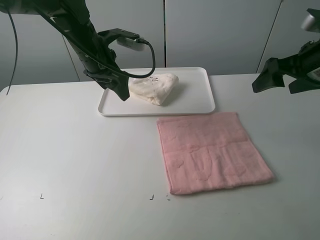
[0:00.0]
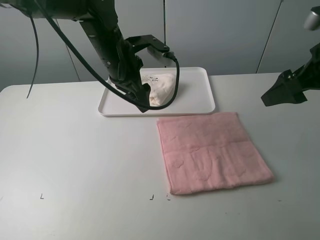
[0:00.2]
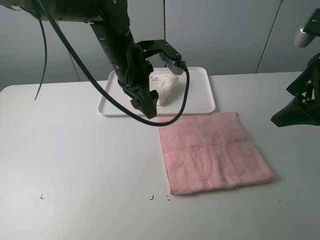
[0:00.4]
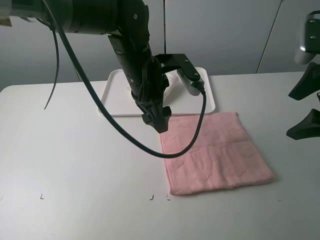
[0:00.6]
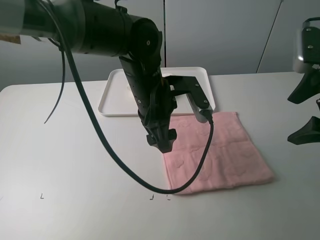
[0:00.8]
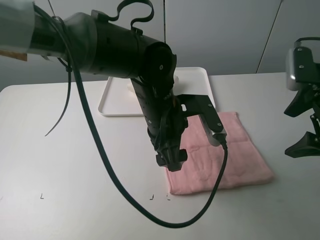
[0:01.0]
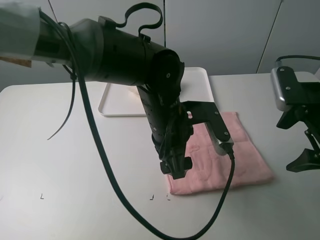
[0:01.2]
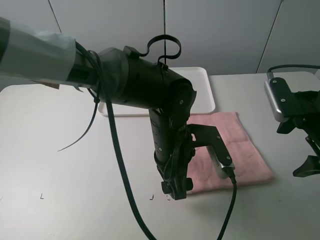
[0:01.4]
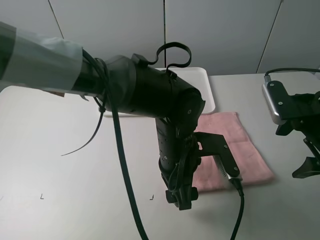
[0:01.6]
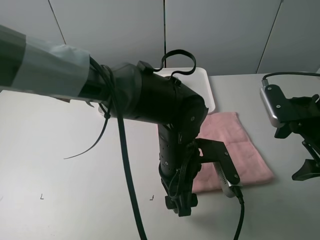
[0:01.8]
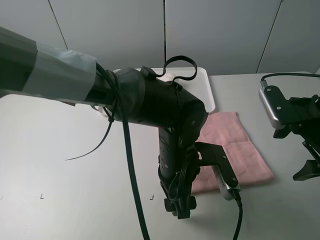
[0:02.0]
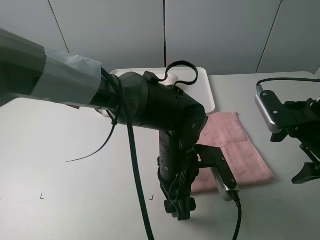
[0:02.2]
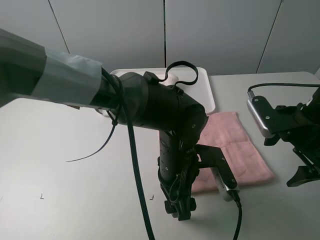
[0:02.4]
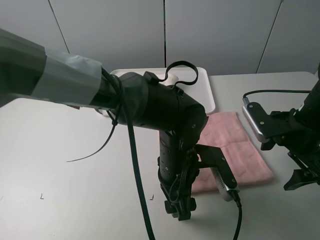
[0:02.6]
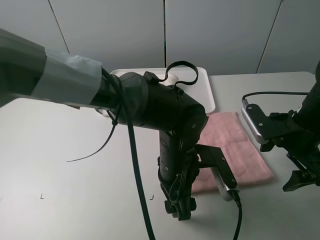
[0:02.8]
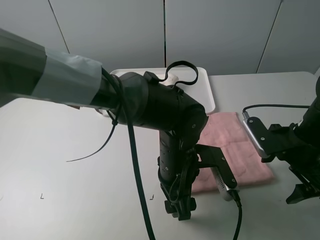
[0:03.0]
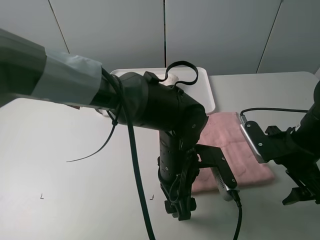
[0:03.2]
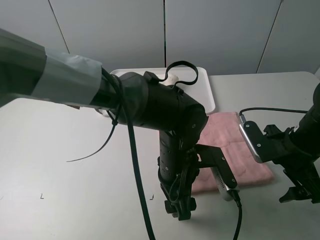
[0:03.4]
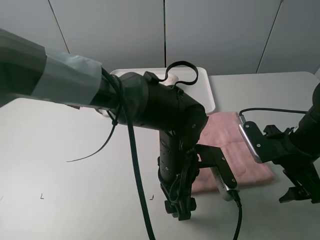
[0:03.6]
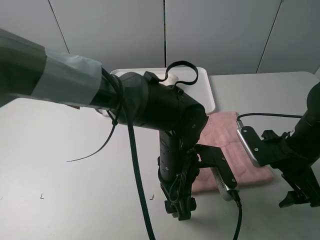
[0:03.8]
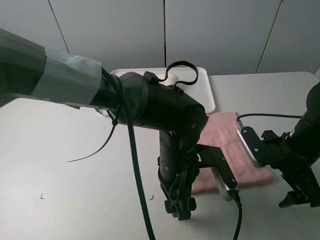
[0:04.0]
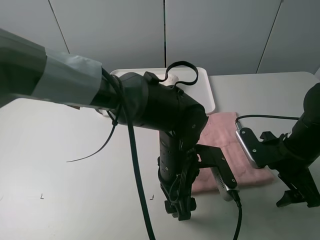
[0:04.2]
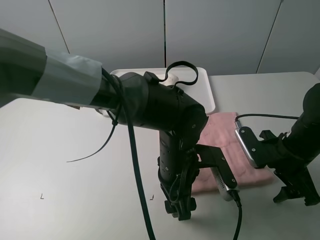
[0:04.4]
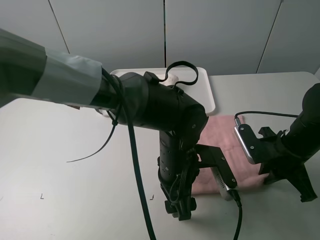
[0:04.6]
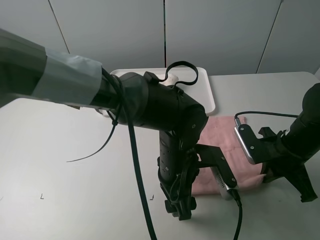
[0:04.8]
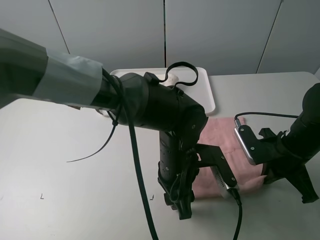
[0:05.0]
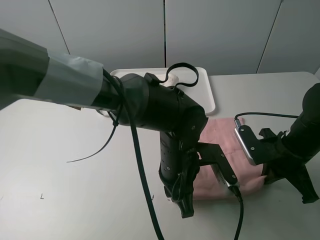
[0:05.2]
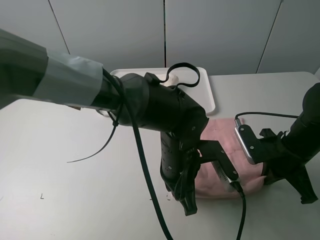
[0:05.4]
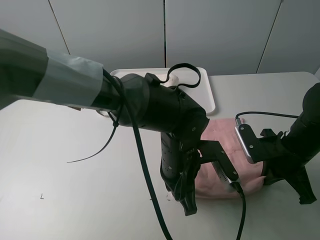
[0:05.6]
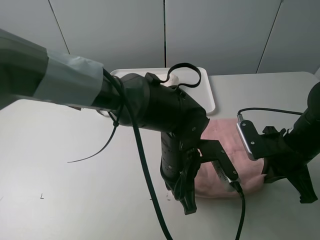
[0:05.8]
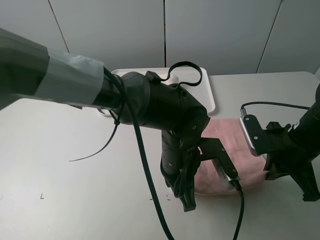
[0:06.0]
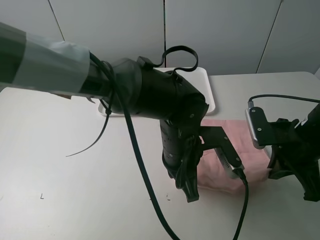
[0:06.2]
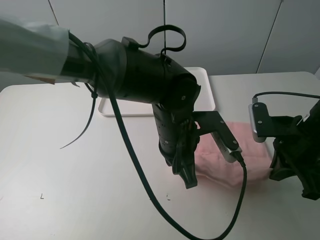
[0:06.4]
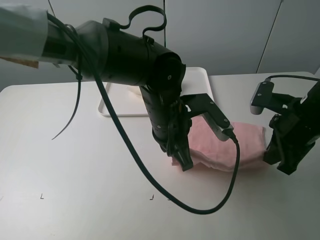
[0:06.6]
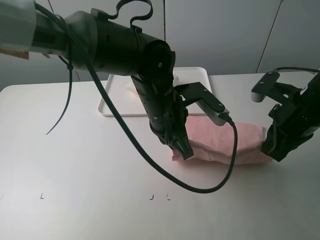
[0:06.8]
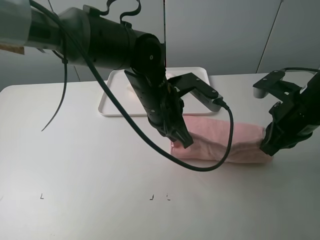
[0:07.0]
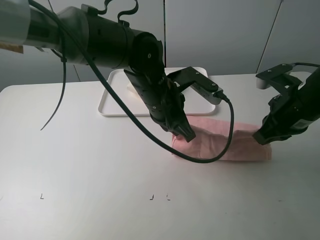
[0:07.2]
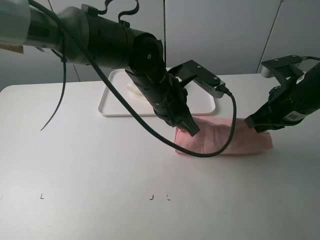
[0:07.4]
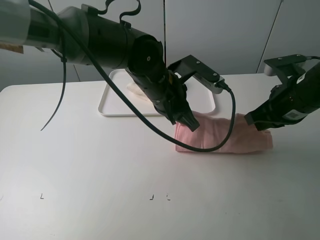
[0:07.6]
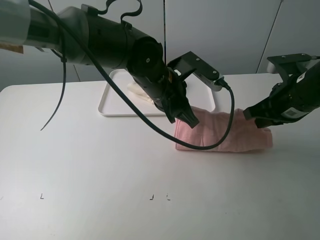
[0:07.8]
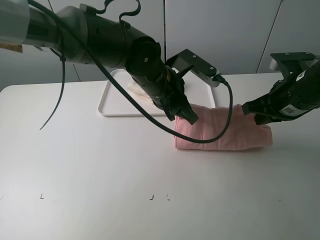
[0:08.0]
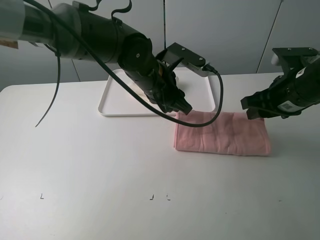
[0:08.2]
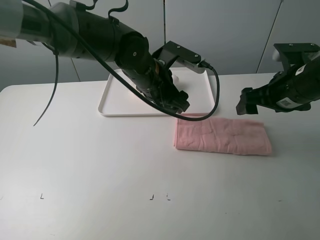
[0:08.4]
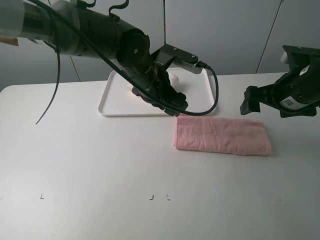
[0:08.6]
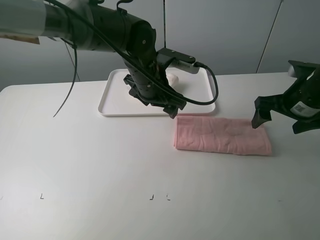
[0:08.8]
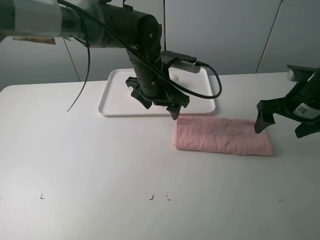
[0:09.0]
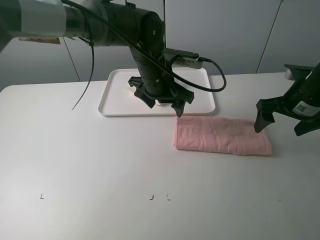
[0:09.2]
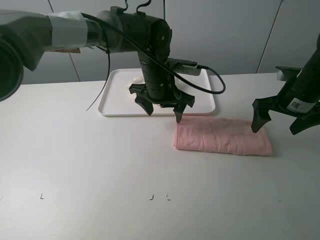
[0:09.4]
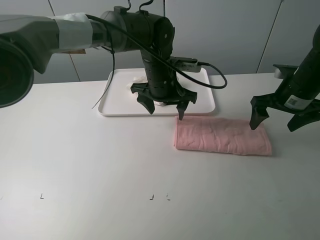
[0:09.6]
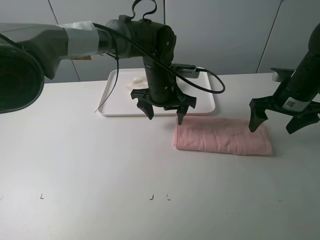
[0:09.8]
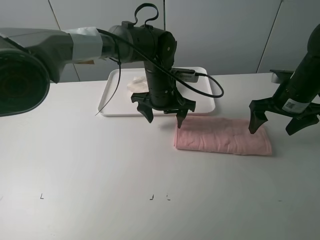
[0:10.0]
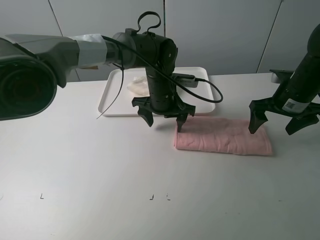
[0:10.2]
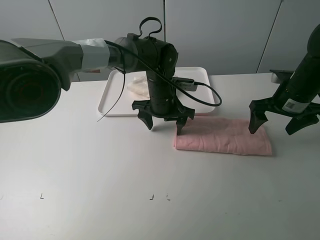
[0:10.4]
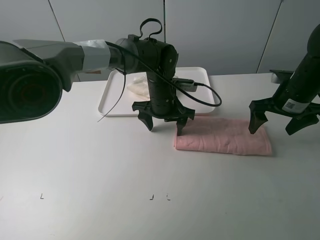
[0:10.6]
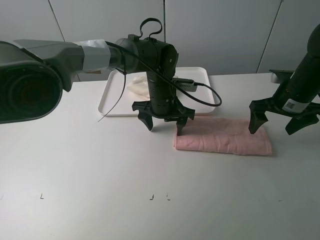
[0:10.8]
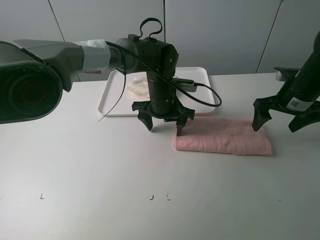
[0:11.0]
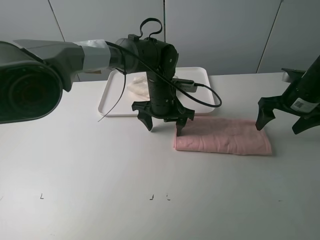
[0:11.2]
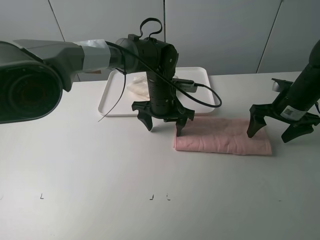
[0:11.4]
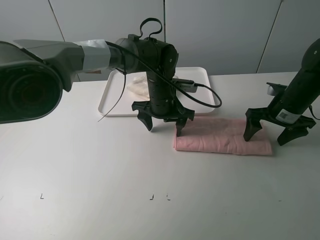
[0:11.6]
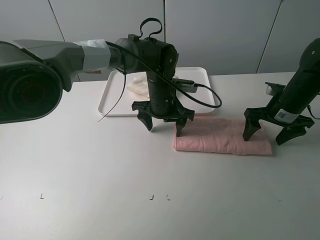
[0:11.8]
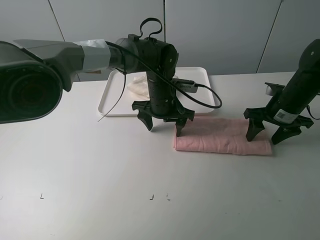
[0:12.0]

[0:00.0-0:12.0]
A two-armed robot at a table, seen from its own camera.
Task of the whole recording: fold one of the towels by two grippers and place it on the tray,then fold another towel by two grippers and place it on the folded towel.
Step, 0.0 to 5.4 s: Grasp the pink towel with the left gripper.
Step, 5.8 to 8.4 s: Fold the pink towel upwards with the left gripper.
Step, 8.8 to 10.8 s: Press the pink towel with the left gripper.
0.0 to 1.6 s: The left gripper travels backward, to the right and downward by approximately 25 cm. Meanwhile the right gripper moves downward and backward, about 10 cm.
1.6 to 3.0 s: The right gripper heads downward, covering approximately 5 cm.
3.0 to 4.4 s: There are only small adjustments of the grippers.
4.4 to 6.0 s: The right gripper closes its fingers; the left gripper closes its fingers.
6.0 to 7.6 s: The left gripper moves forward and upward, some 10 cm; the right gripper shifts about 5 cm upward.
7.6 to 9.0 s: The left gripper shifts approximately 5 cm forward, and opens its fingers. The right gripper changes place by about 5 cm, and opens.
9.0 to 10.4 s: The left gripper is displaced downward by approximately 5 cm.
10.4 to 12.0 s: The grippers move only a little.

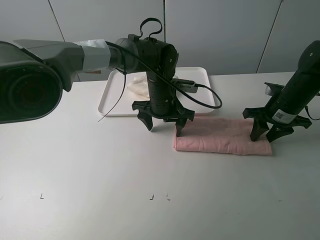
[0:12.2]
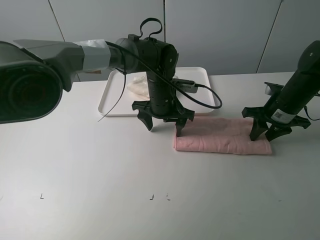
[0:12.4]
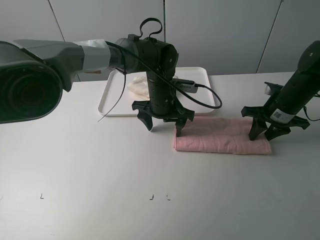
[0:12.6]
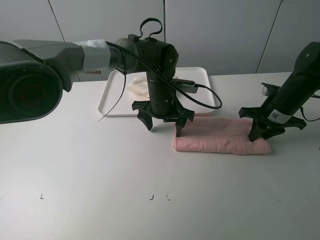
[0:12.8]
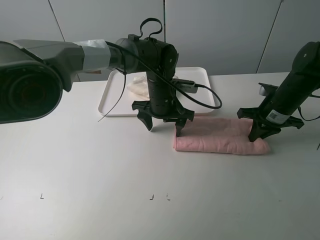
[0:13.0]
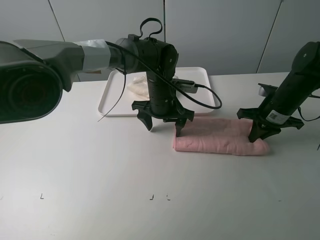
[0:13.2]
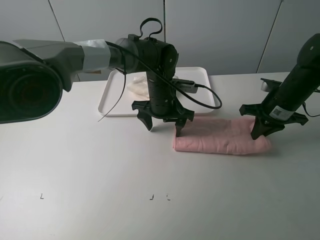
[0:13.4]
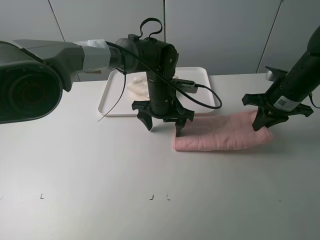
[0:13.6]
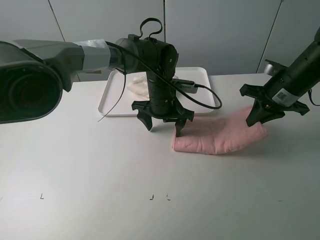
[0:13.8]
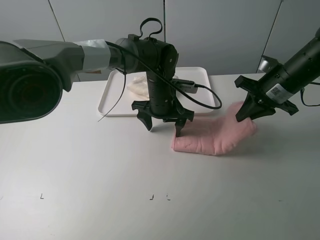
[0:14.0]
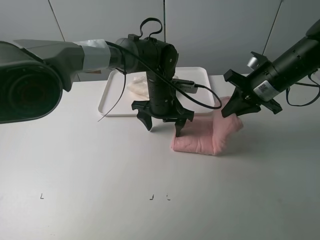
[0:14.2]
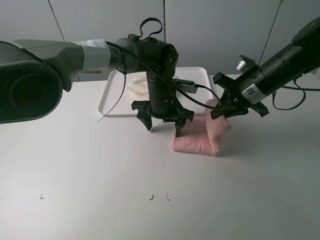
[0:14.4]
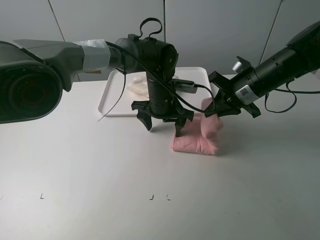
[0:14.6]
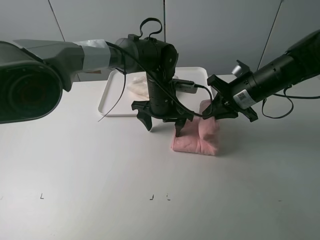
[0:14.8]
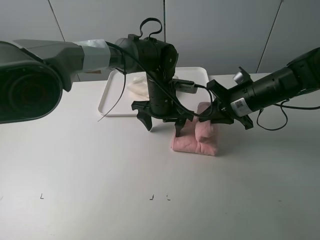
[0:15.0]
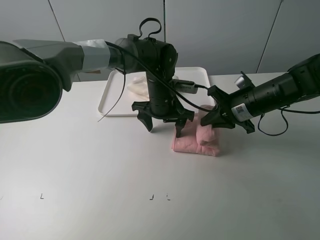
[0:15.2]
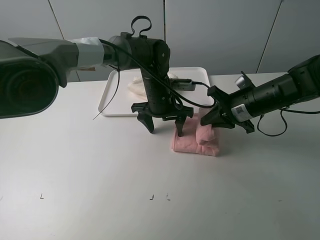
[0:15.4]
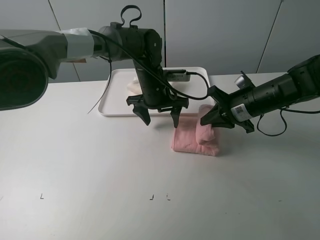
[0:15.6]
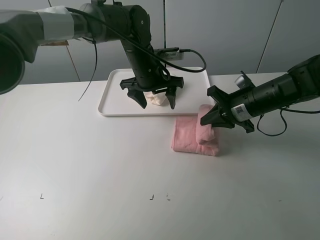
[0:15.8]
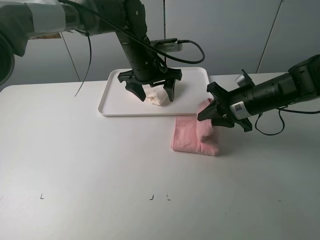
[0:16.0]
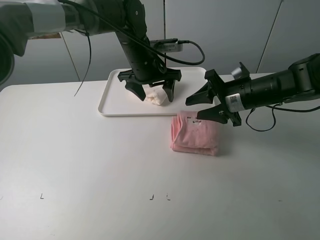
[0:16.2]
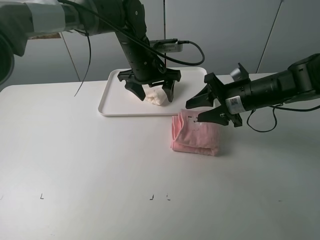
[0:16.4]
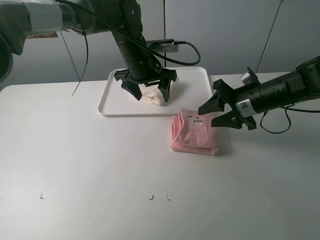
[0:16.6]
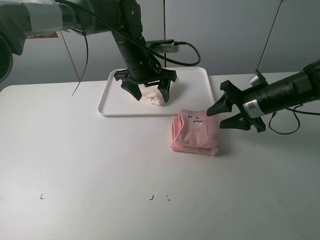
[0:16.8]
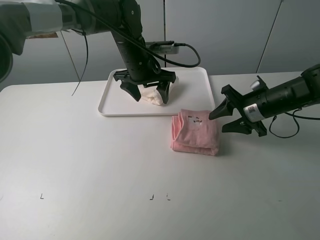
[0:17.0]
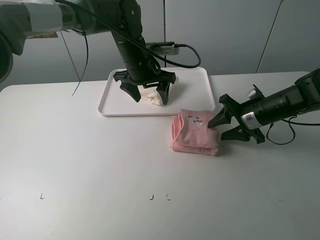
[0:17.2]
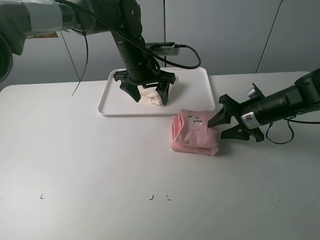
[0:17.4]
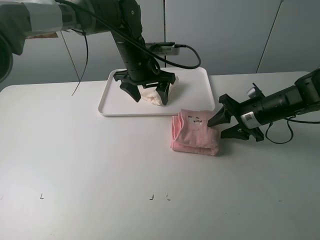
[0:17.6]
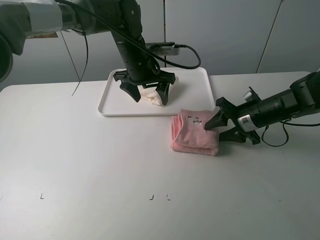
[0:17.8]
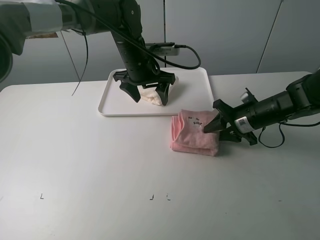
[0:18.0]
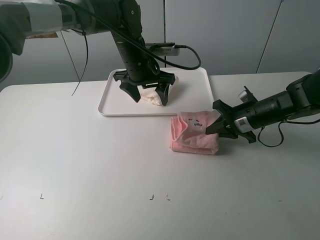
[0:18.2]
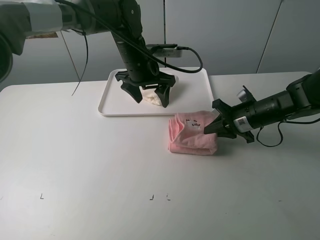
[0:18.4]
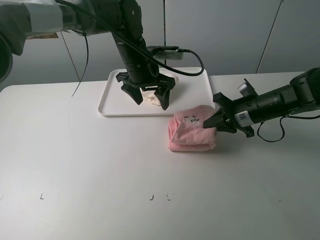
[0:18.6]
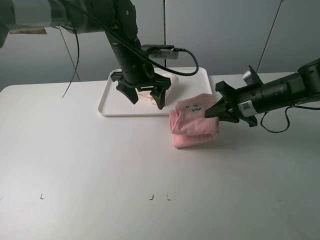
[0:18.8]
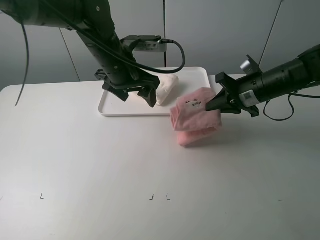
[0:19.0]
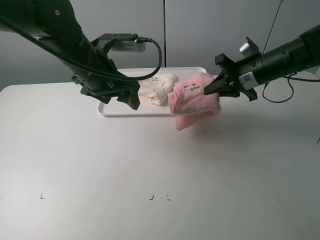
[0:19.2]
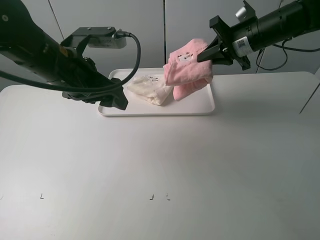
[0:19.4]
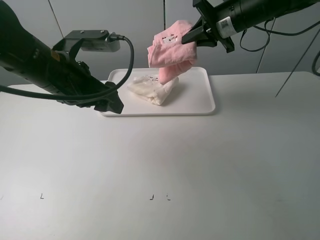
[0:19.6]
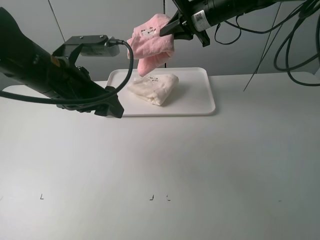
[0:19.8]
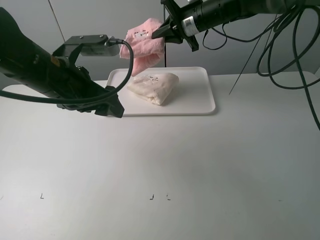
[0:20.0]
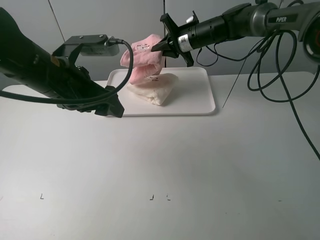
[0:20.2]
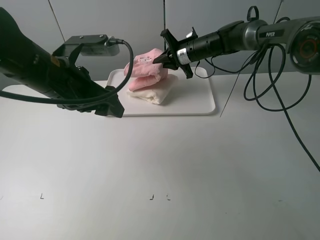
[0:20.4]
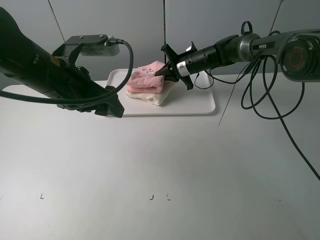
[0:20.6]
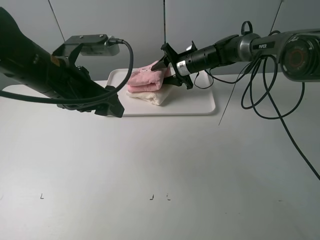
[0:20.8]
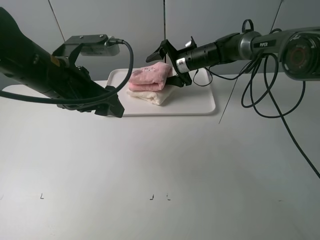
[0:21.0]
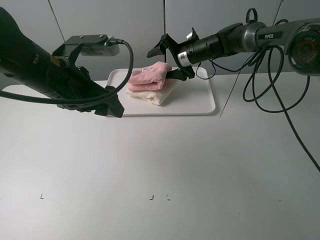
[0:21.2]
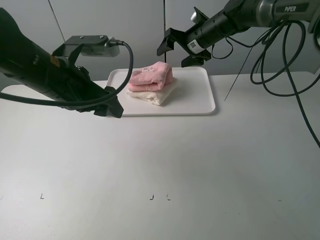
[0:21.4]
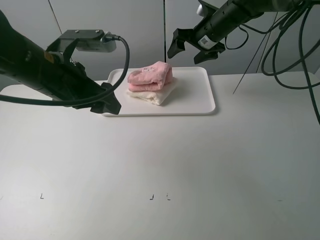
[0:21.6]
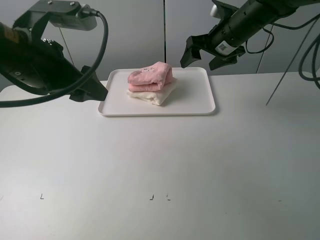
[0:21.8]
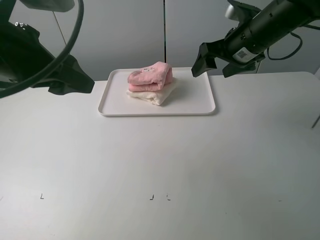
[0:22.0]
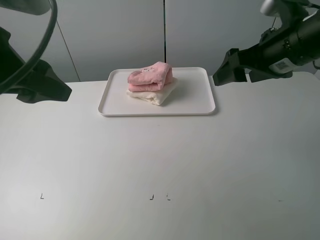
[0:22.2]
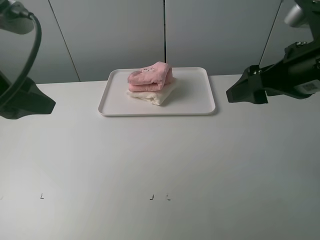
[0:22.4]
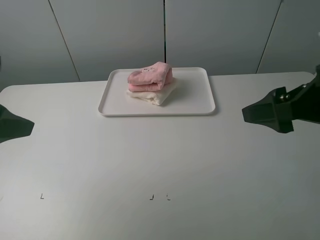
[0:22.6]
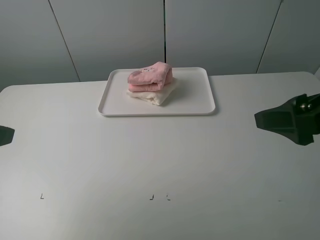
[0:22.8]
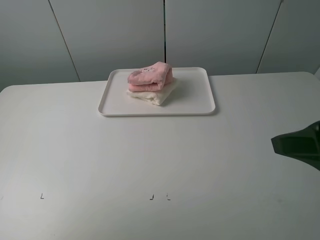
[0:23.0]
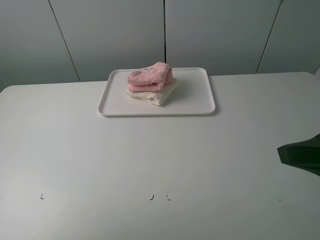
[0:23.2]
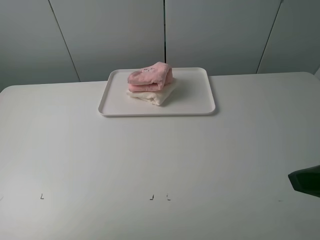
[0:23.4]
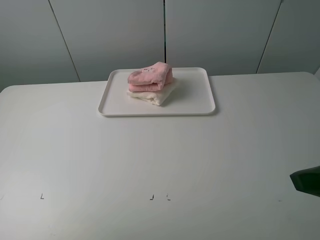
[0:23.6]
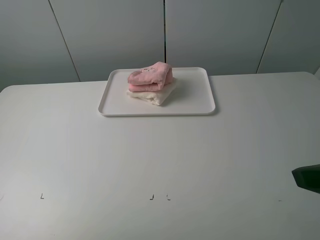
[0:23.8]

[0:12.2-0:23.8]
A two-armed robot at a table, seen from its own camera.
Task of the whole recording: fold one of the towels by two grippers and place it on the tray,then fold another towel by two grippers and place it on the folded towel.
Step, 13.0 to 17.0 s: Fold the pink towel from right to left with right gripper.
Step, 17.2 to 18.2 s: Grasp the pink towel with the right gripper.
Step, 18.4 to 21.2 s: Place the pink towel on the white towel with the right gripper.
12.2 to 13.6 s: The right gripper moves some 5 cm, and closes its fingers.
13.6 to 15.0 s: The right gripper travels to the left by approximately 5 cm.
15.0 to 16.6 s: The right gripper opens; the left gripper is displaced upward and to the left by about 10 cm.
16.6 to 18.0 s: The right gripper travels downward by approximately 5 cm.
18.0 to 19.4 s: The left gripper heads backward, to the left and upward, covering some 20 cm, while the right gripper heads upward and forward, covering roughly 20 cm.
19.4 to 21.0 s: The right gripper heads downward, forward and to the left, covering some 20 cm, and opens up.
21.0 to 22.4 s: The left gripper is displaced backward, upward and to the left by some 15 cm, while the right gripper goes approximately 35 cm backward and upward.
22.4 to 23.8 s: The right gripper moves backward, about 15 cm, while the left gripper goes some 15 cm backward and to the left.
